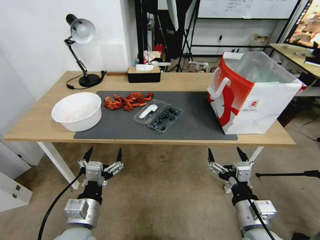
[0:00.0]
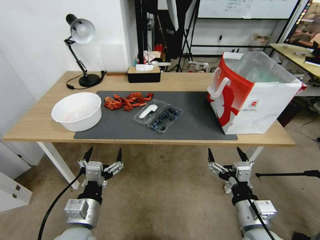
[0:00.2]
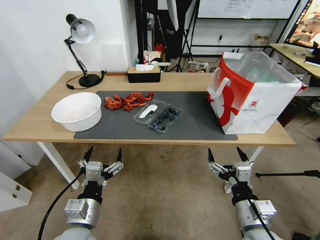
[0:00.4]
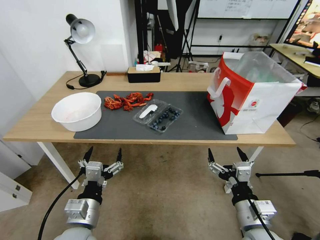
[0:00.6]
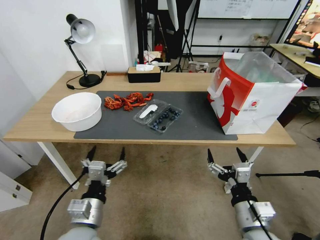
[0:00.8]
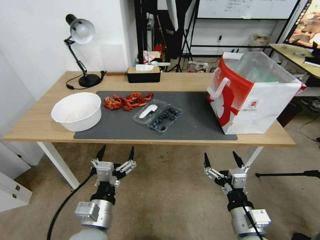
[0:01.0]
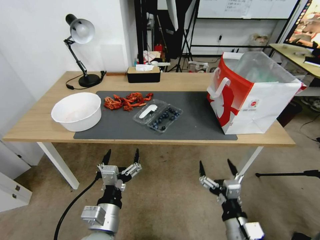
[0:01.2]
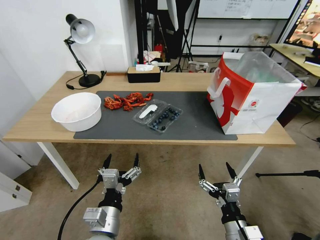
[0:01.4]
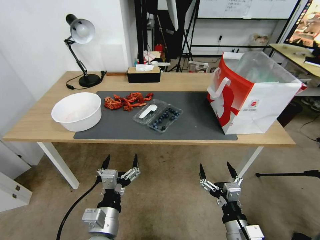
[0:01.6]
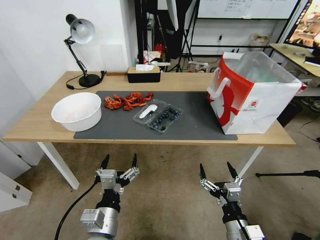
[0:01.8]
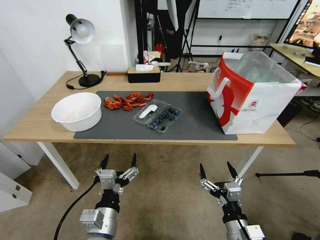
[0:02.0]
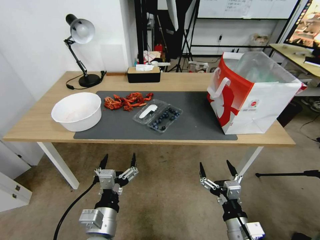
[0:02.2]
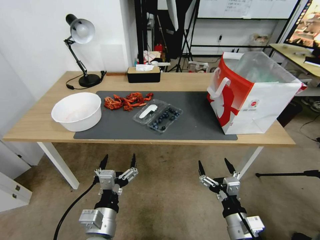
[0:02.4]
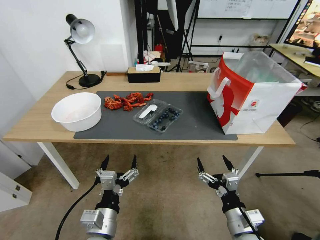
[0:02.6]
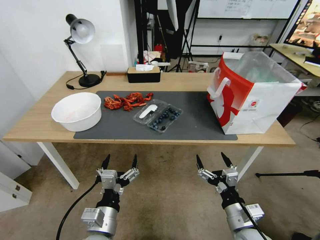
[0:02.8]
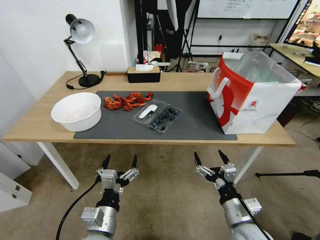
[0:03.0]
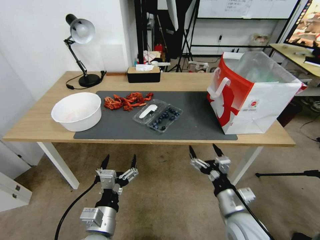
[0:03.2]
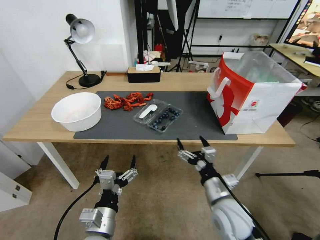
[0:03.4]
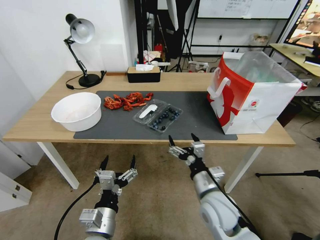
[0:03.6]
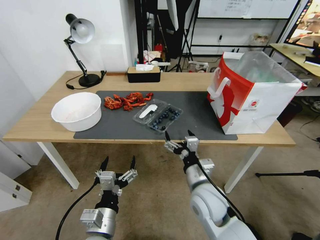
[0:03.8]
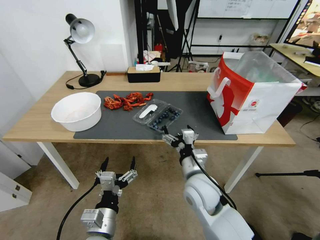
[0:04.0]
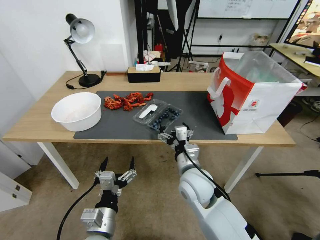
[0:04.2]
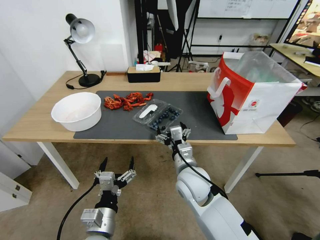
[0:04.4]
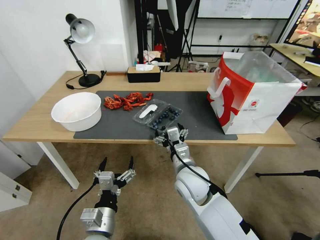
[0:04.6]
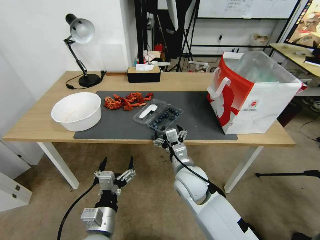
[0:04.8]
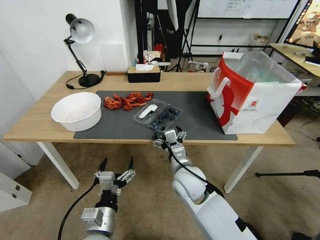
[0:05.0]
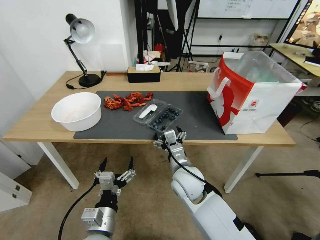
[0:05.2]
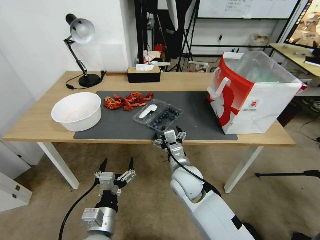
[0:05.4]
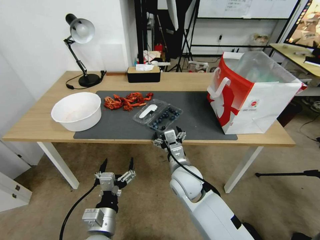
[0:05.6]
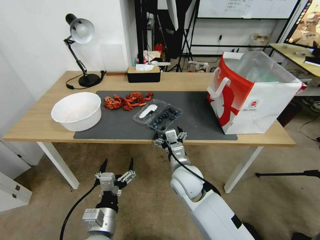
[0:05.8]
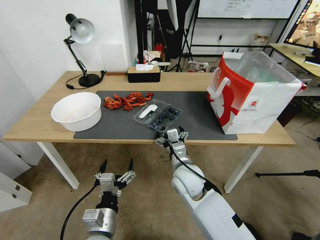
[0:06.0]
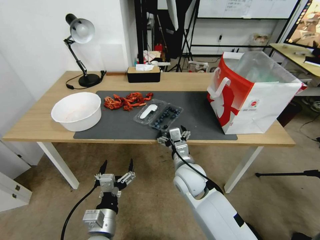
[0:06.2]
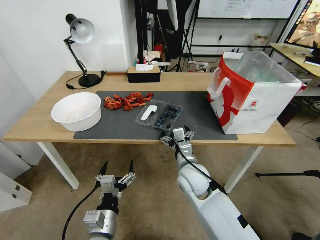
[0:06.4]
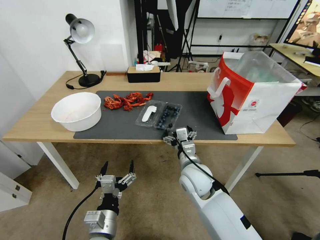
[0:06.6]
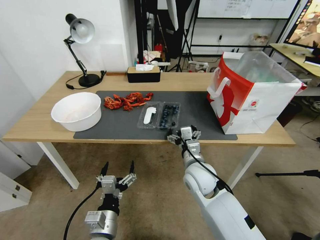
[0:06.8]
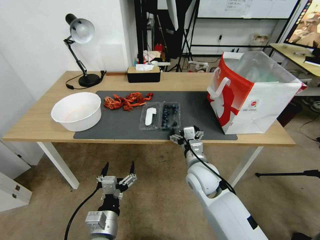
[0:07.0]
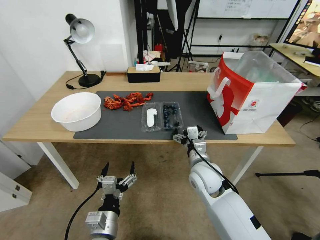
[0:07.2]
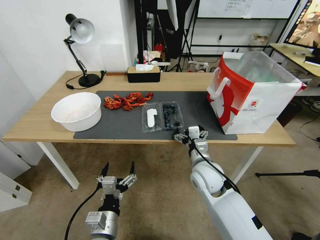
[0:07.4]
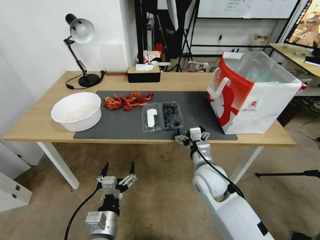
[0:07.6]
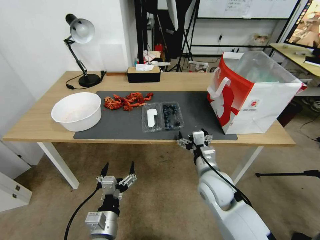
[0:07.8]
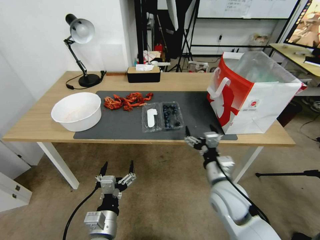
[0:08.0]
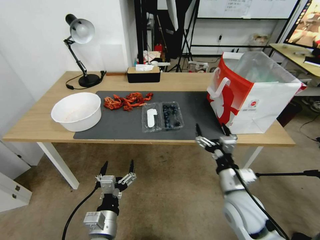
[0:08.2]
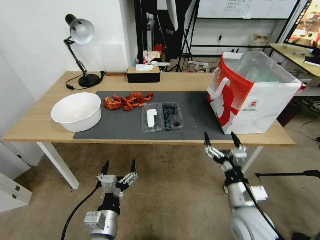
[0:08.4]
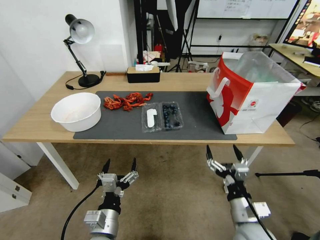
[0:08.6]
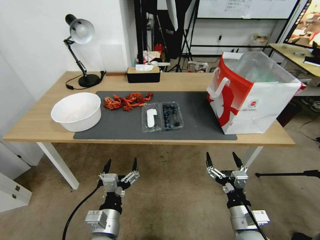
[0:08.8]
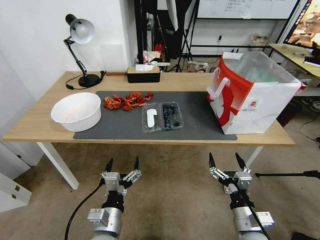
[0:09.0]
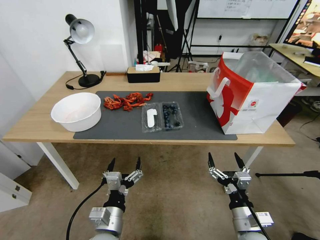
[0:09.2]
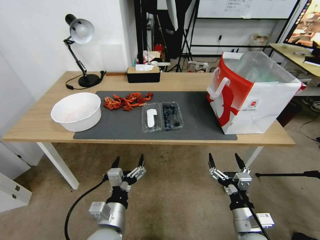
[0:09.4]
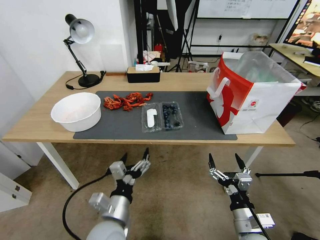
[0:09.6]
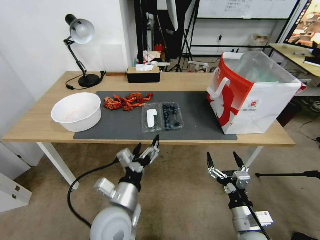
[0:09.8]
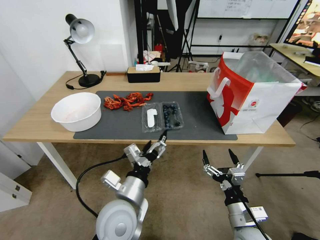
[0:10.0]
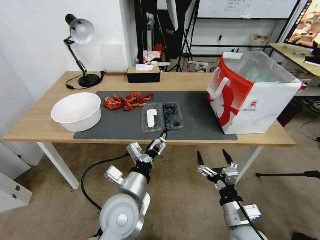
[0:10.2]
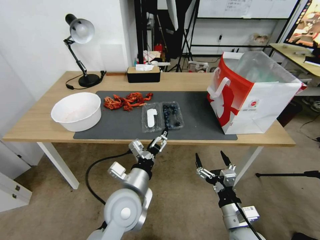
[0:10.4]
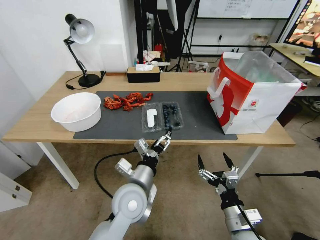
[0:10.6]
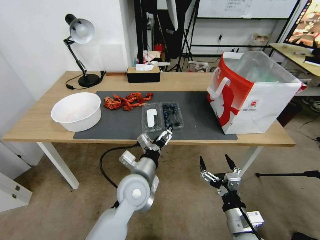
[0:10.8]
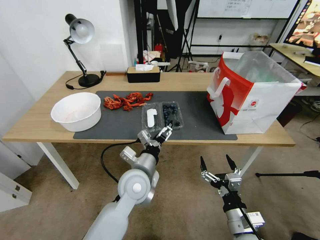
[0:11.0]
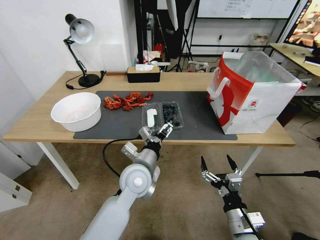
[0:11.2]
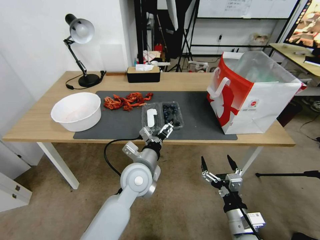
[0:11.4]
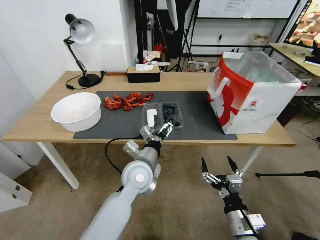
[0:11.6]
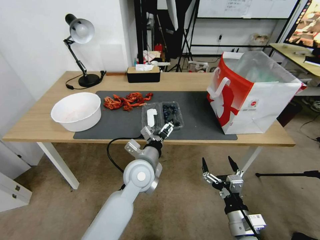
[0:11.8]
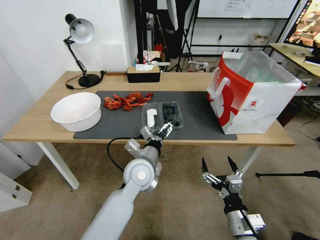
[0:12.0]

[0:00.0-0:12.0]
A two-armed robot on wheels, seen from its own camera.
Task of the whole recording: Close the takeout container lid, then place the container into the takeout bag.
0:01.6 to 0:03.0: The right gripper changes place by some 5 cm.
0:03.0 to 0:04.4: The right gripper heads to the left and forward, covering about 20 cm.
0:04.4 to 0:06.0: The grippers move only a little.
0:06.0 to 0:07.6: The right gripper moves to the right, about 5 cm.
0:07.6 to 0:09.0: The right gripper goes roughly 20 cm backward, to the right and downward.
0:09.0 to 0:10.4: The left gripper goes some 15 cm forward, upward and to the right.
0:10.4 to 0:12.0: The left gripper shifts about 10 cm forward.

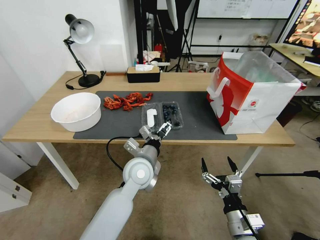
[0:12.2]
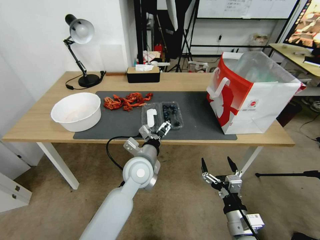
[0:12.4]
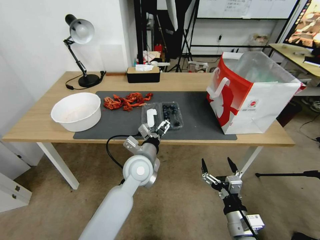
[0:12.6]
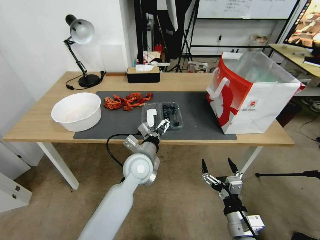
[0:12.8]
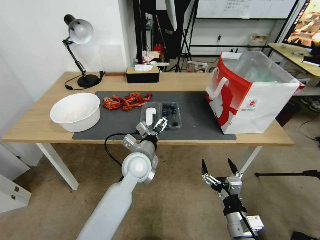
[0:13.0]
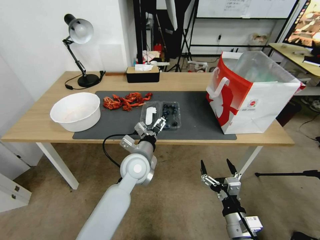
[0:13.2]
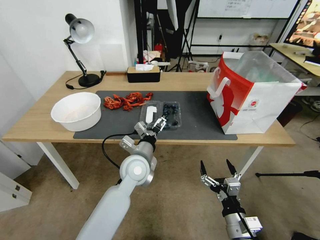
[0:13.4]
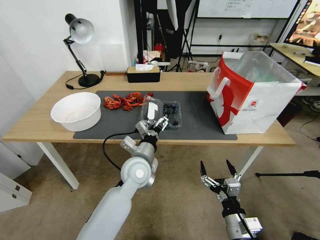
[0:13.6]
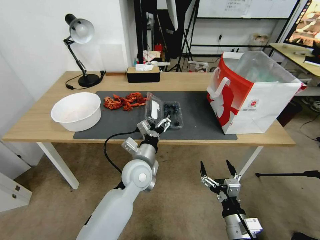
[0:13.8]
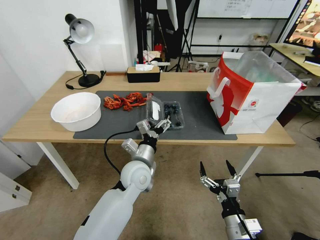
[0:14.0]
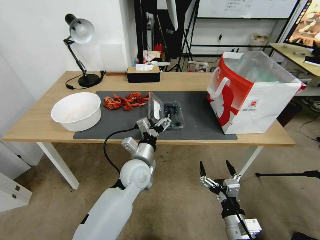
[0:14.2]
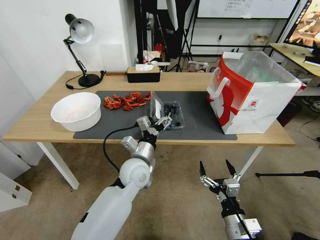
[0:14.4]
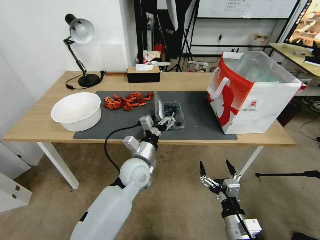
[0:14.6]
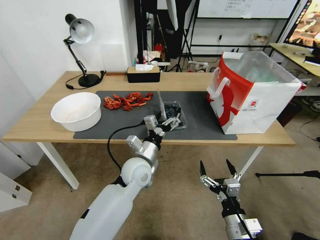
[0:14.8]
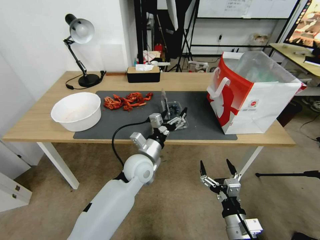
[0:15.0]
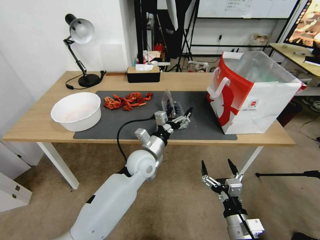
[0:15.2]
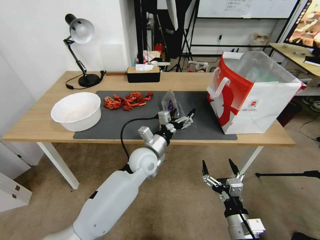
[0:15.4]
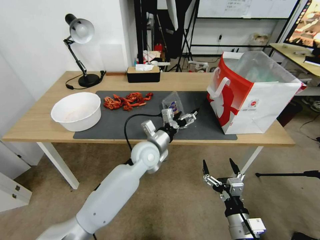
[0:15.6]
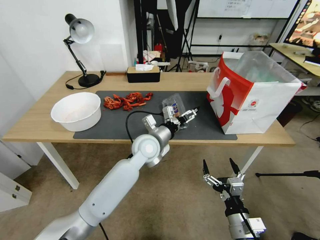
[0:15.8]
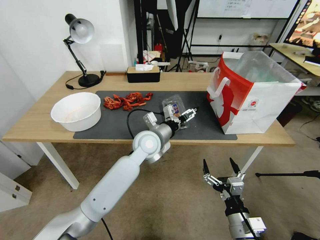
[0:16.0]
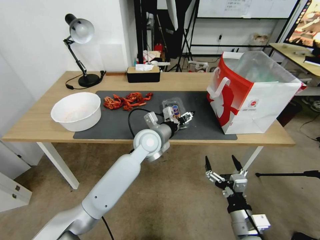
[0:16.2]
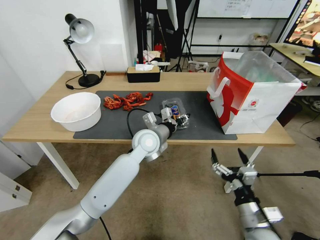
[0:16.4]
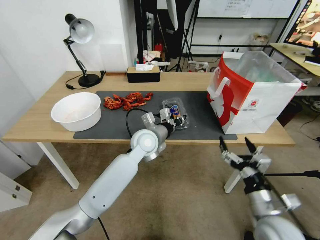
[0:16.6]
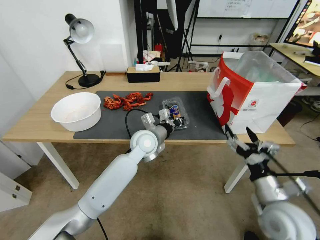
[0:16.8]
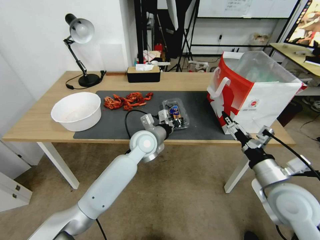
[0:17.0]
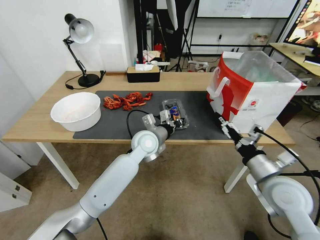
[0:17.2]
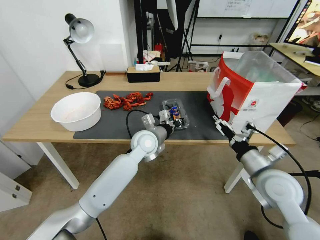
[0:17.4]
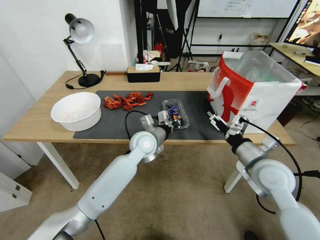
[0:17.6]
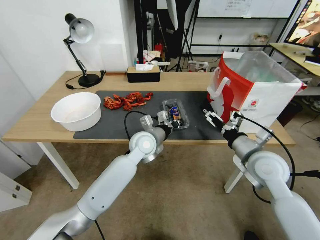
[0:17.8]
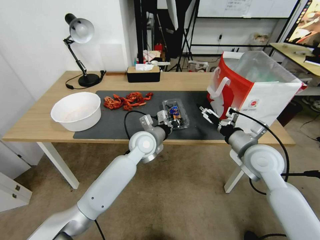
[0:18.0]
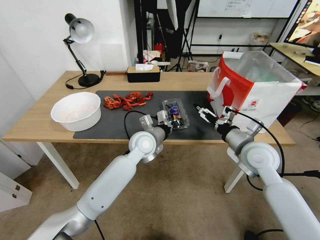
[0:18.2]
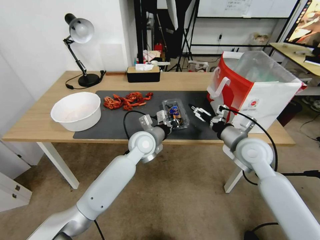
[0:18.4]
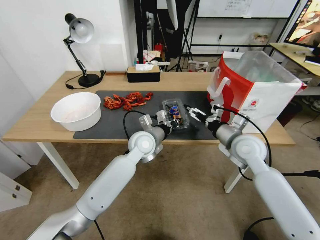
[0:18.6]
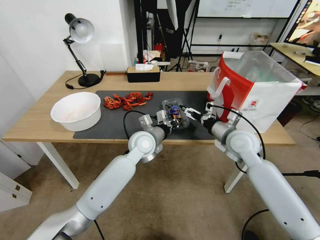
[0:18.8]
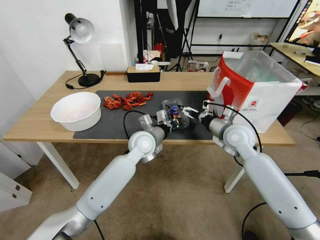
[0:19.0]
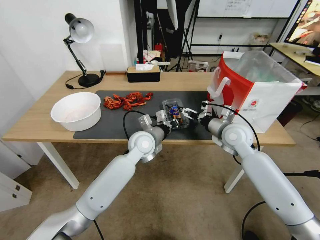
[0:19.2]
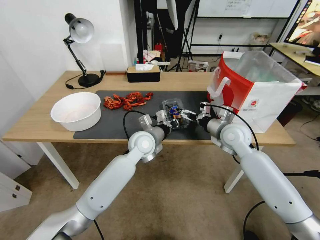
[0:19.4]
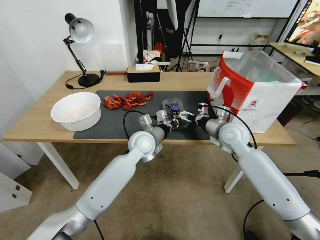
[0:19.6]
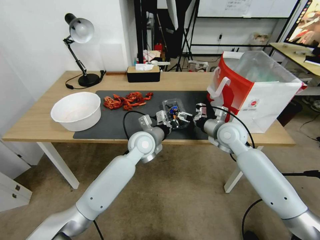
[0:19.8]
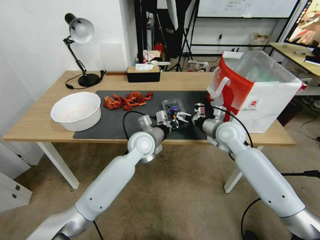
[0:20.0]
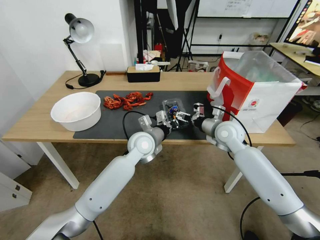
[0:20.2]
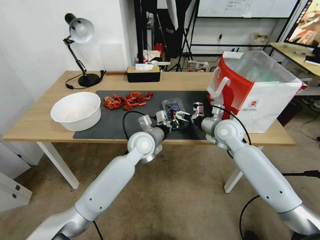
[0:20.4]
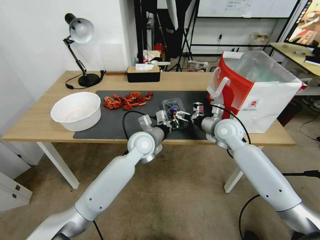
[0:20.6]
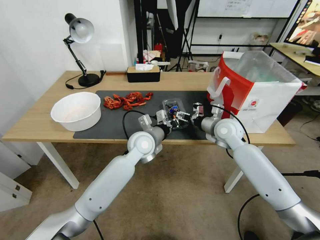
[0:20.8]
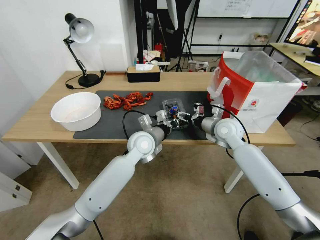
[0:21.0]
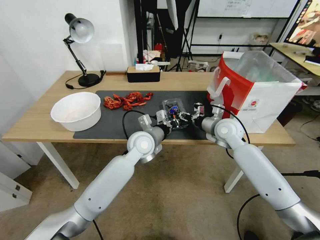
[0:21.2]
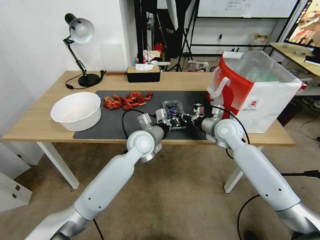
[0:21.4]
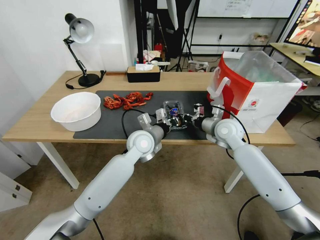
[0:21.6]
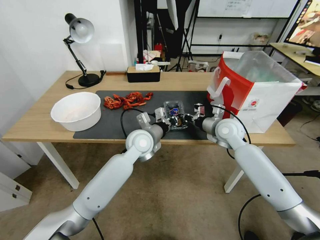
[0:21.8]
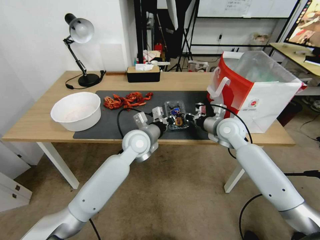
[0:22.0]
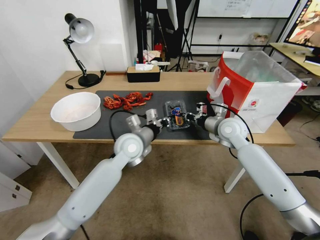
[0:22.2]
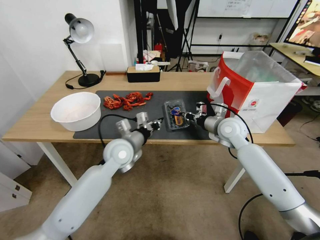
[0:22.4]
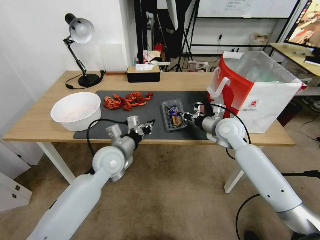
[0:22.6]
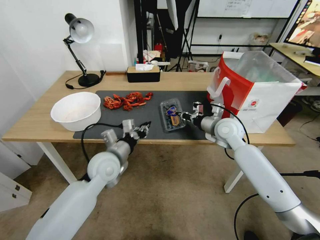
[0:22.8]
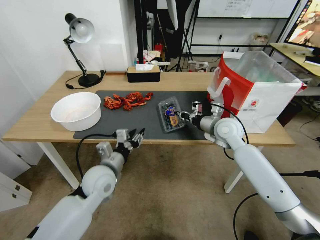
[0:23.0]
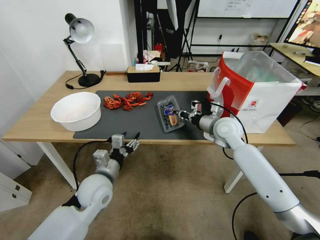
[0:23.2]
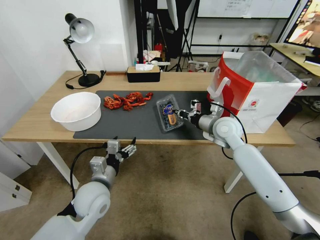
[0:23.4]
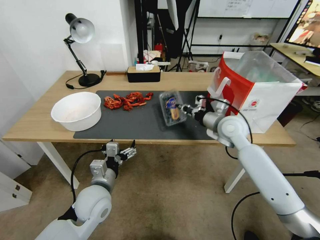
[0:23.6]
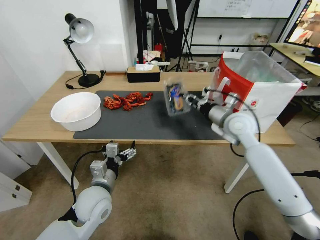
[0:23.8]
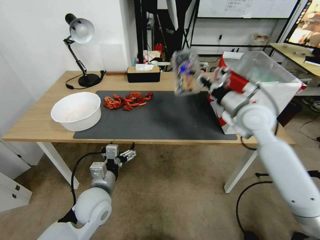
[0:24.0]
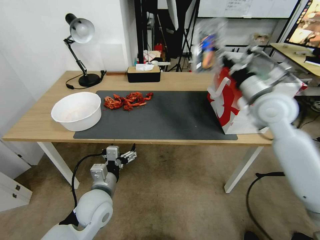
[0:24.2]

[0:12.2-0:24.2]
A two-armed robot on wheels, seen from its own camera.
Task of the whole recording: Close the takeout container lid, then place the container into the takeout bag.
0:12.2 to 0:13.8: There are only small adjustments of the grippers.
0:15.2 to 0:16.6: The left gripper shifts roughly 5 cm forward, and closes; the right gripper is displaced upward and to the right by approximately 10 cm.
0:16.6 to 0:18.2: The right gripper shifts roughly 20 cm forward and upward.
0:18.2 to 0:19.8: The right gripper travels forward by approximately 10 cm.
0:19.8 to 0:21.2: The right gripper closes up.
0:21.2 to 0:22.6: The right gripper closes; the left gripper moves to the left and backward, roughly 10 cm.
0:22.6 to 0:24.2: The left gripper travels backward and downward by some 15 cm, and opens; the right gripper is displaced upward by approximately 15 cm.
